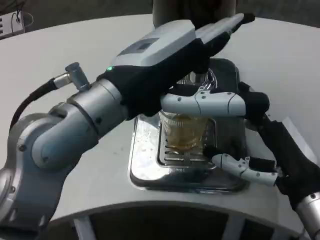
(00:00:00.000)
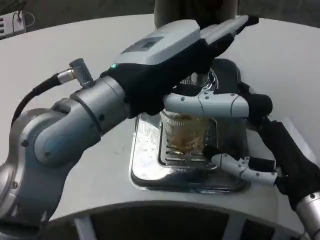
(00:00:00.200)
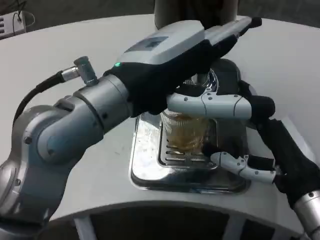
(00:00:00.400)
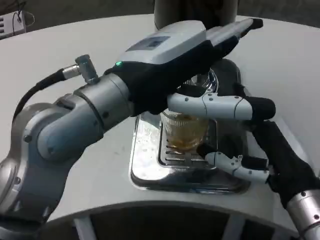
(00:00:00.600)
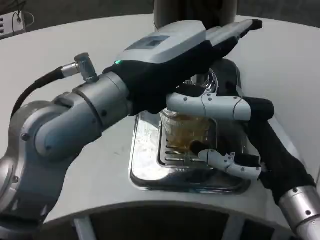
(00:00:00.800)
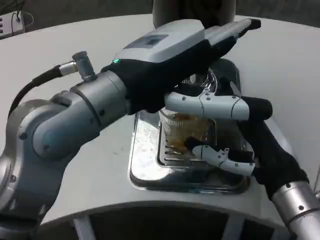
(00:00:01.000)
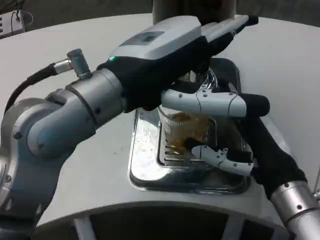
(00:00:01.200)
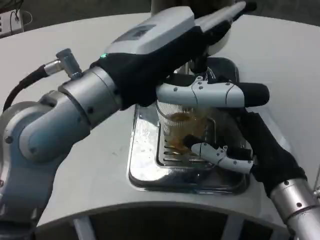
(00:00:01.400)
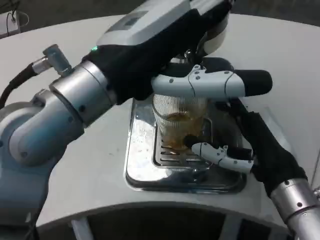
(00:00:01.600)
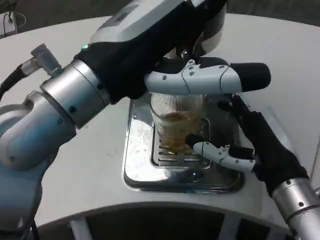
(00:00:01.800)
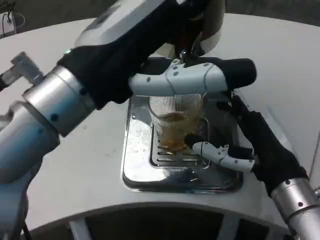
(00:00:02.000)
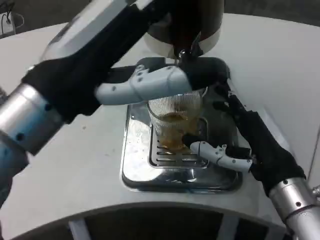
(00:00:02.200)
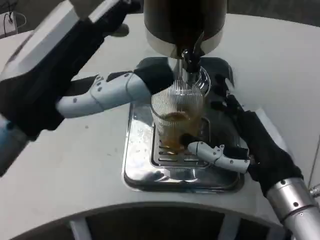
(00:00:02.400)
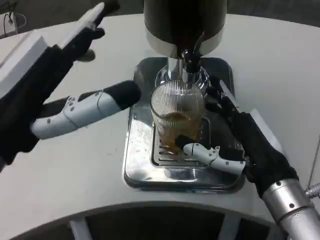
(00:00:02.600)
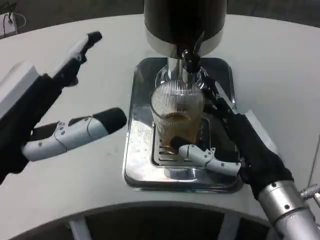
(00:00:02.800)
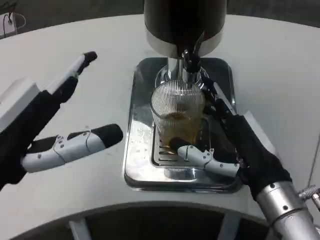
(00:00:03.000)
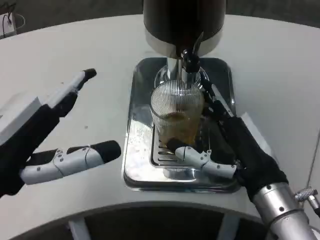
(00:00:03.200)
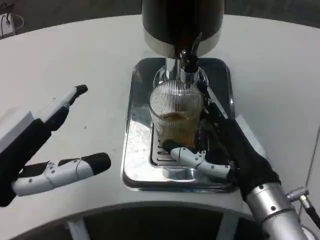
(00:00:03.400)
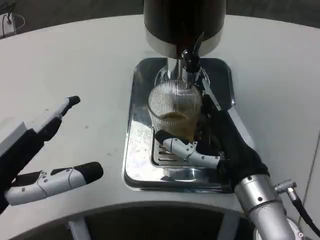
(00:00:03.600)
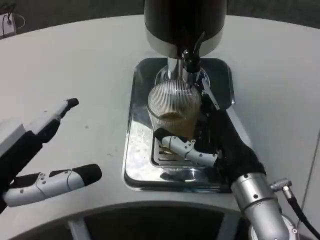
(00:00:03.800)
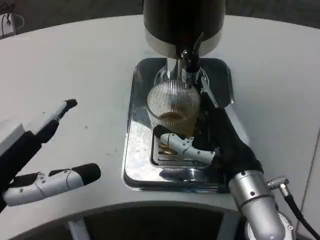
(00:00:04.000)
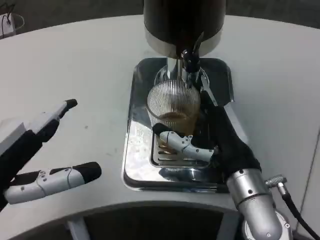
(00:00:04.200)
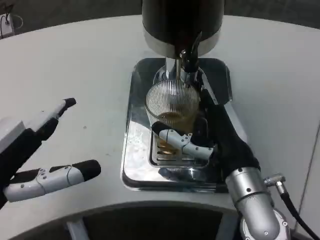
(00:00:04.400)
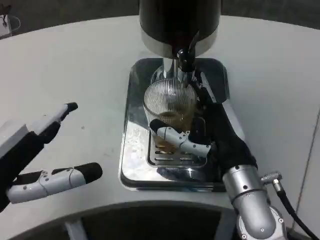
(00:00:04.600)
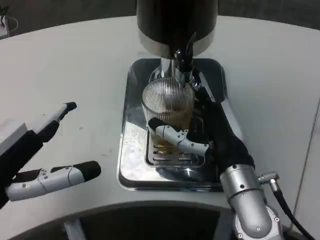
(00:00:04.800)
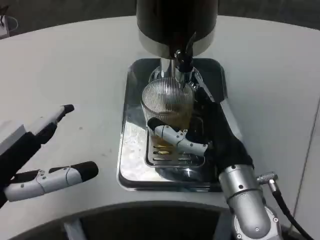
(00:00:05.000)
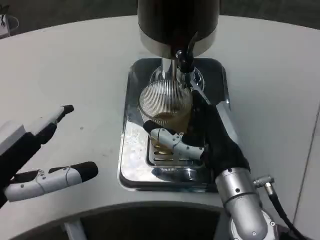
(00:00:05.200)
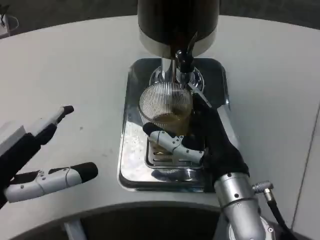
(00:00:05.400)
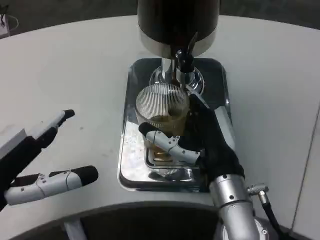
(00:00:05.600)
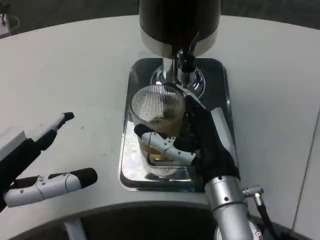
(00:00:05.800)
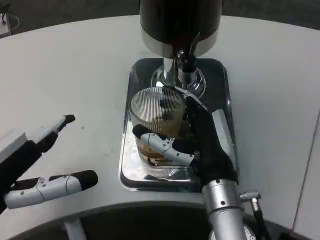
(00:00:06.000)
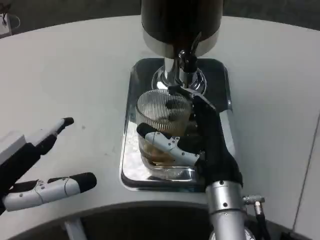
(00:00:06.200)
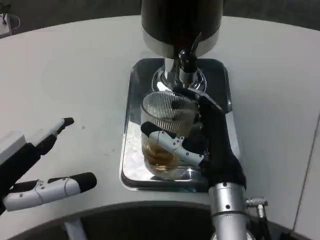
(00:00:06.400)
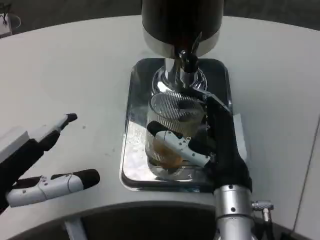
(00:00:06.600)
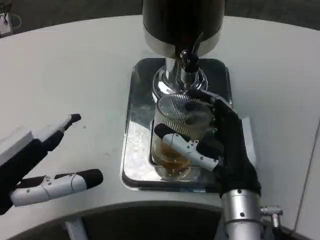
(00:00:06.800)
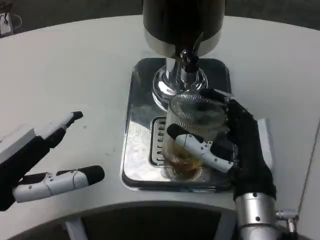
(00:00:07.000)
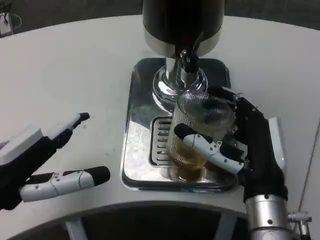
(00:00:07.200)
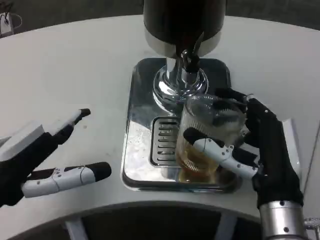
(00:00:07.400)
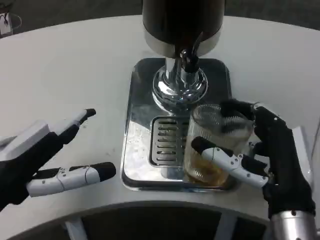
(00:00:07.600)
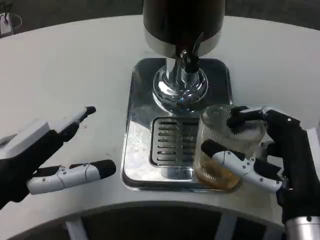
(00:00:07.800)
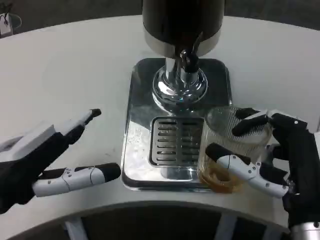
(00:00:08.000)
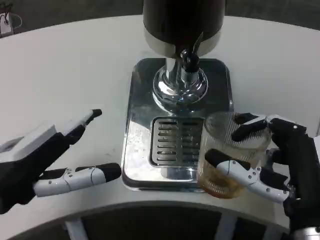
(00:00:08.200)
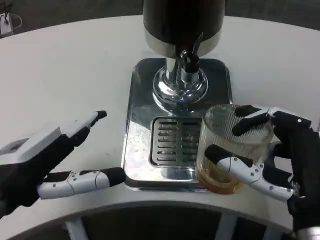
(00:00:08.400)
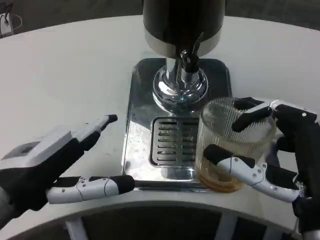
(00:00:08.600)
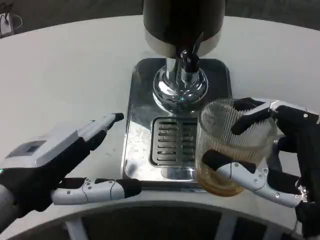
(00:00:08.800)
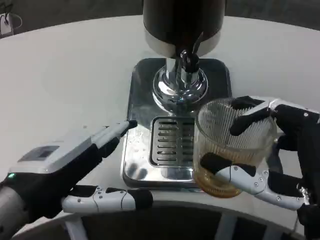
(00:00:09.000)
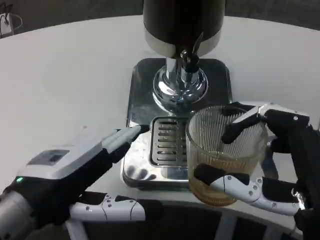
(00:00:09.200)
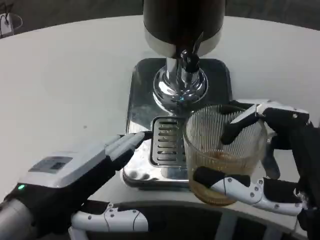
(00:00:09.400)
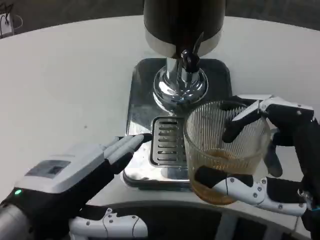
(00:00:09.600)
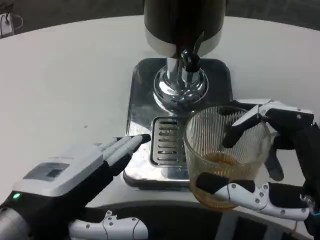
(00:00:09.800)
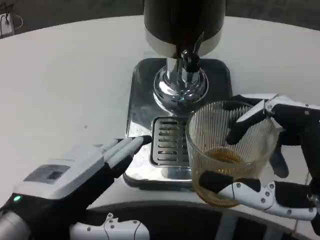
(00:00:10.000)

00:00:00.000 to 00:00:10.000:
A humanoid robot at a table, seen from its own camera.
Task of the whole recording: Grasp the cup under the faucet to collect the drink, then remove the cup.
00:00:01.400 to 00:00:02.800: The left hand heads to the left, downward and backward, covering about 15 cm.
00:00:02.800 to 00:00:04.200: The right hand changes place by approximately 5 cm.
00:00:07.200 to 00:00:08.600: The right hand goes roughly 5 cm backward.

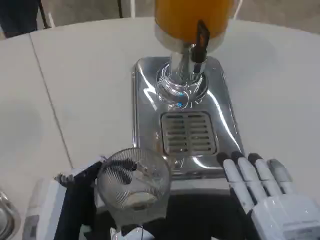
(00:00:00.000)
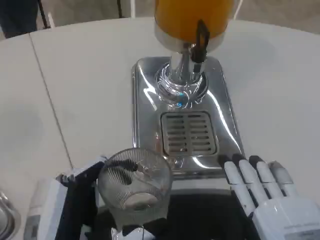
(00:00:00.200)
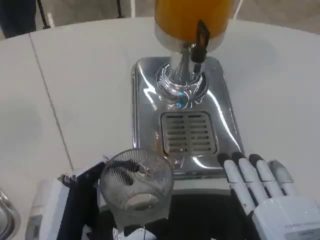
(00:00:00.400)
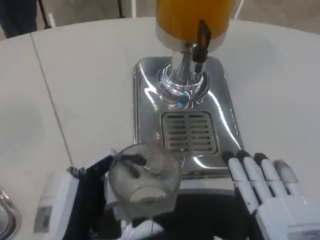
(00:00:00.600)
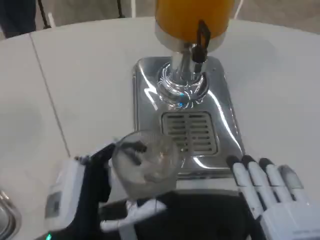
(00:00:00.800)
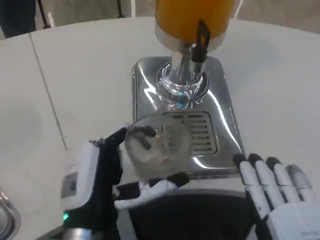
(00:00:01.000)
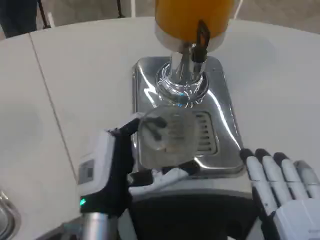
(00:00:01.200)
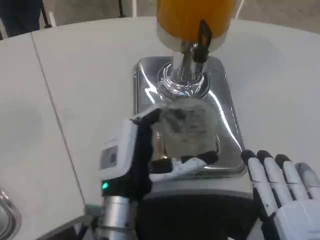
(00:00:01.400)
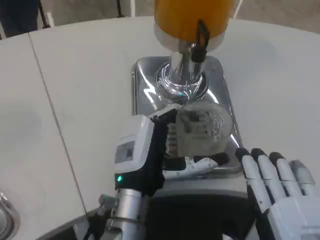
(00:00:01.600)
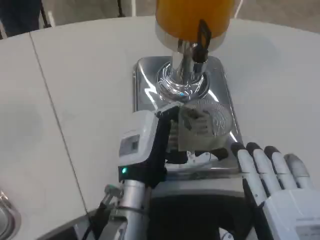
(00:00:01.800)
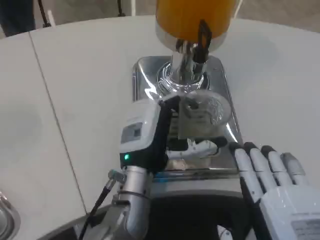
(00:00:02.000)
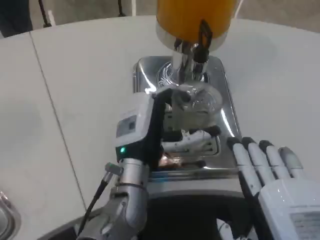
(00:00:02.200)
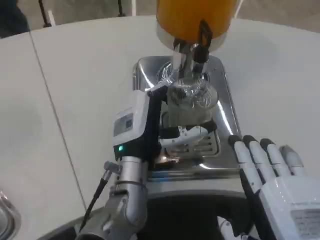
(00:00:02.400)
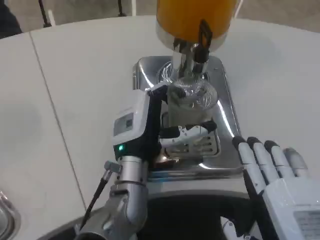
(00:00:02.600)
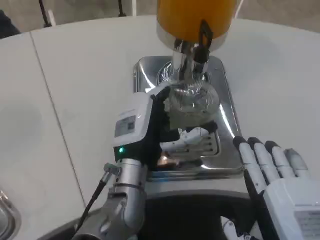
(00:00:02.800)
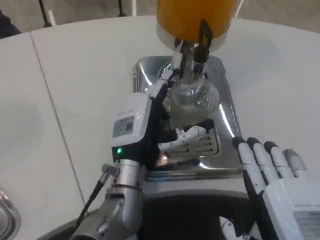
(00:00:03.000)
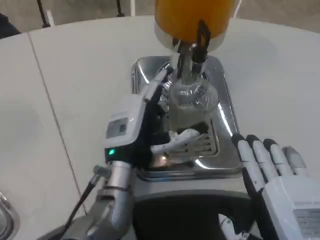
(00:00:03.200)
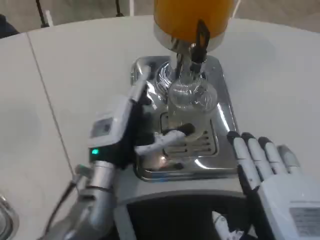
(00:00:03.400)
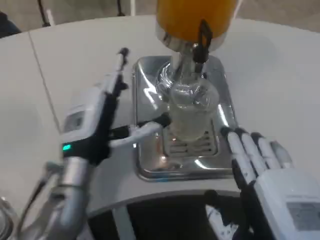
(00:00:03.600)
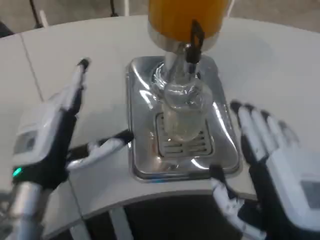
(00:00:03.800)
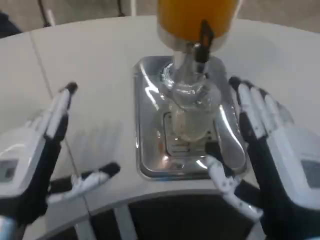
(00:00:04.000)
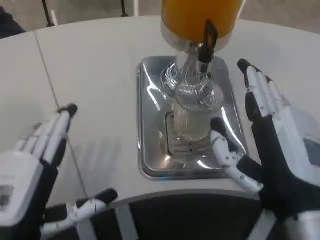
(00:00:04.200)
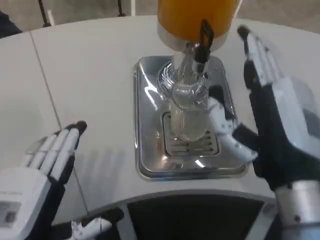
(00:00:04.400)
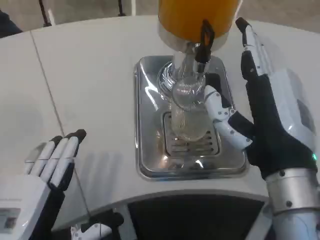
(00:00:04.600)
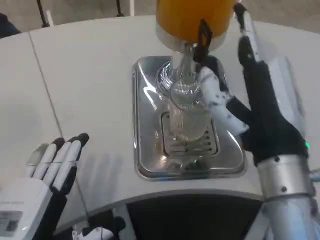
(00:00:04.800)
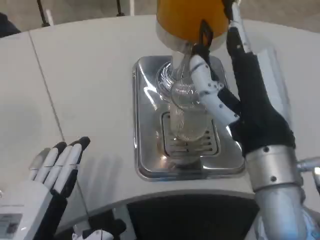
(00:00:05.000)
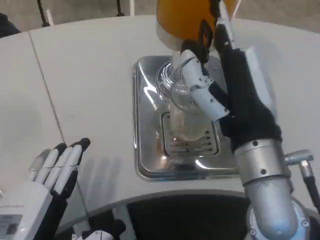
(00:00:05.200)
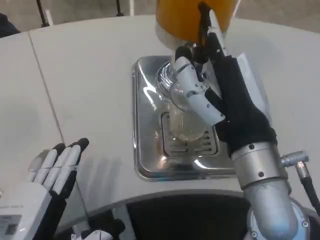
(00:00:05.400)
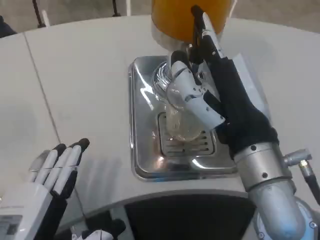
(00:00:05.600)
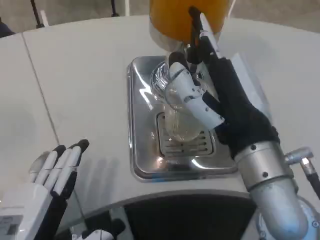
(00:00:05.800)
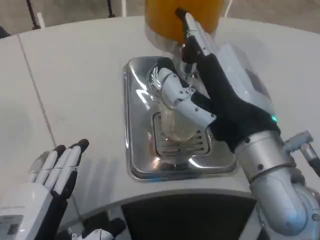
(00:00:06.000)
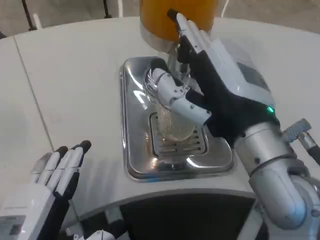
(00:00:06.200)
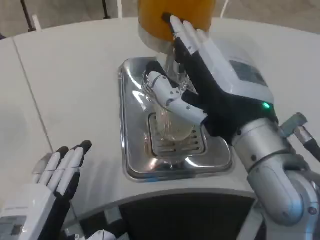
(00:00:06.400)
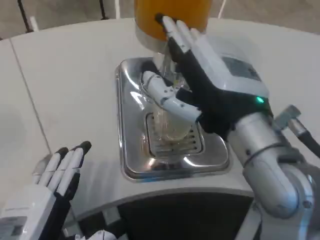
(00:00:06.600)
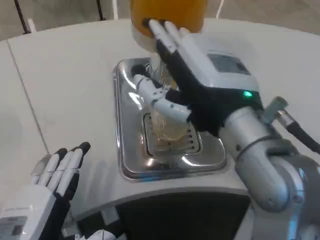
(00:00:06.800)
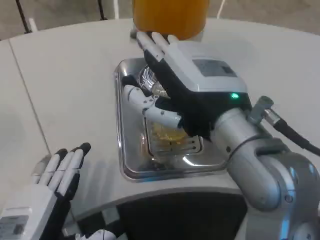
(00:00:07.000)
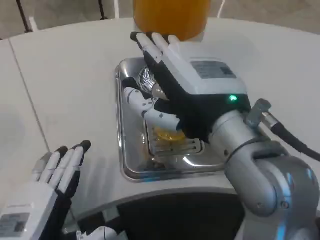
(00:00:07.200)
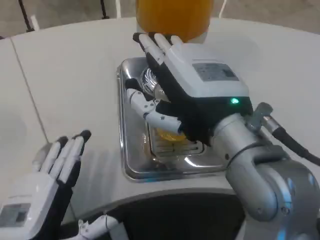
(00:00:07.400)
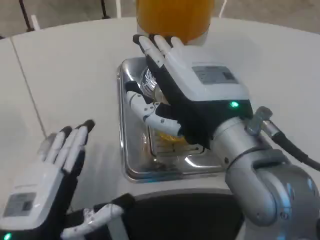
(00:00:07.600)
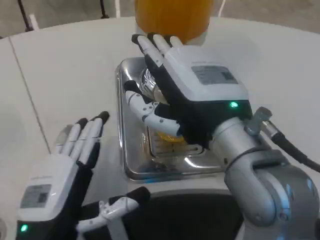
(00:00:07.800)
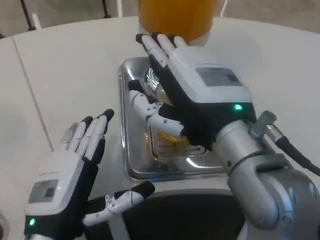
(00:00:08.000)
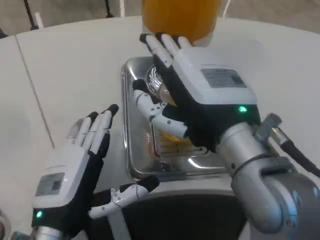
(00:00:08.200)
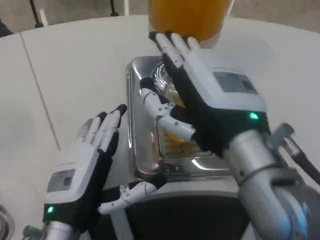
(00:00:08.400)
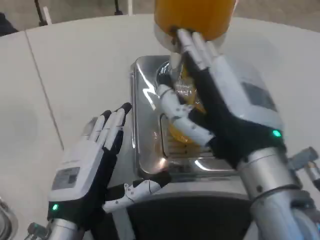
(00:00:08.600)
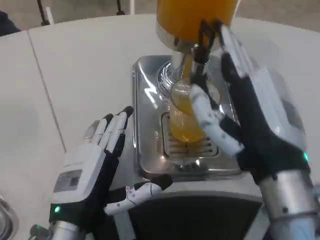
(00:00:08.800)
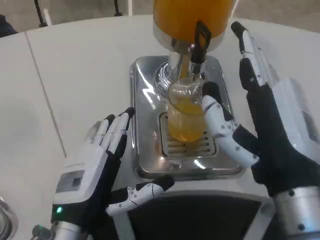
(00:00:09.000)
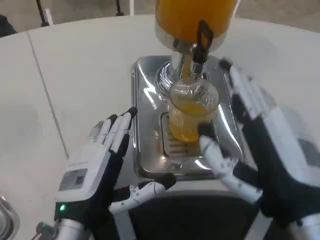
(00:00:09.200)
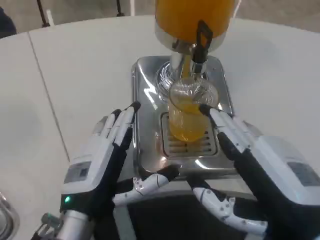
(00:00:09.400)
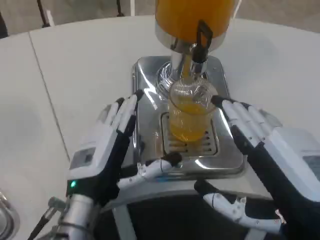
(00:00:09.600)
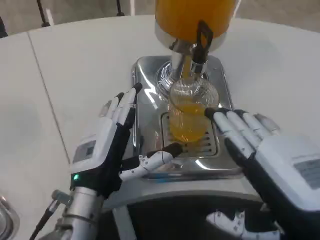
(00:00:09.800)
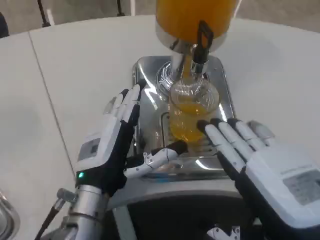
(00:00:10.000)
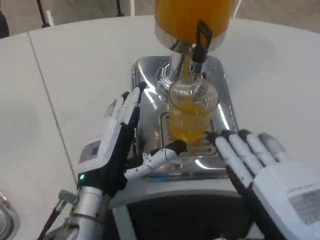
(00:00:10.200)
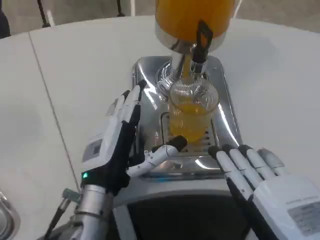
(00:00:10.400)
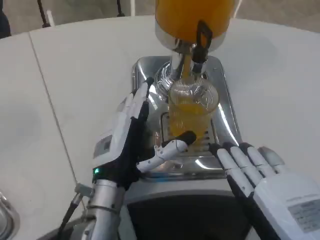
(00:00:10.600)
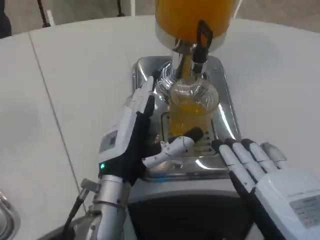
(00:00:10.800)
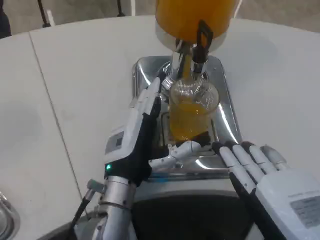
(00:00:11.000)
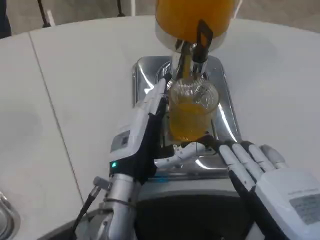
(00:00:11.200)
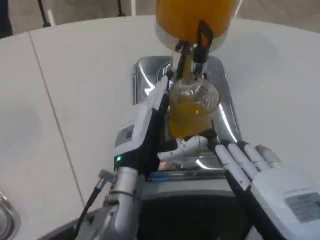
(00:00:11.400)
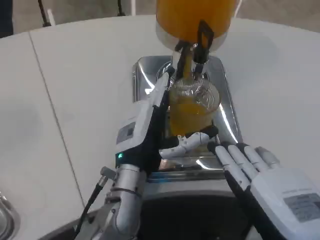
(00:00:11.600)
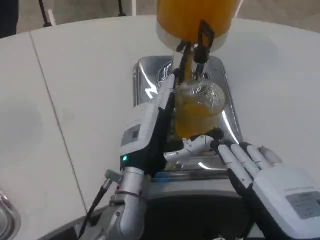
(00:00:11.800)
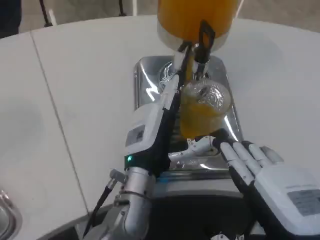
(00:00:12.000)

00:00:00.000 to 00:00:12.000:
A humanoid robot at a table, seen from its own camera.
Task of the whole recording: Grasp the cup under the faucet to collect the drink, then remove the cup.
00:00:00.000 to 00:00:01.600: The left hand is displaced forward and to the right by approximately 15 cm.
00:00:03.000 to 00:00:04.400: The left hand shifts about 20 cm backward and to the left. Meanwhile the right hand is displaced forward and upward by roughly 10 cm.
00:00:04.400 to 00:00:06.000: The right hand changes place by roughly 5 cm.
00:00:07.600 to 00:00:09.000: The right hand moves downward, approximately 5 cm. Meanwhile the left hand ends up some 5 cm from where it was.
00:00:09.000 to 00:00:10.400: The left hand travels forward by some 5 cm, while the right hand travels backward by some 5 cm.
00:00:10.400 to 00:00:12.000: The left hand shifts about 5 cm to the right.
